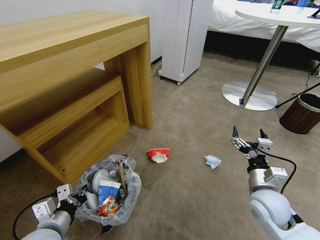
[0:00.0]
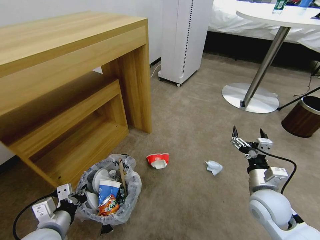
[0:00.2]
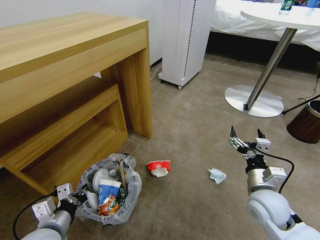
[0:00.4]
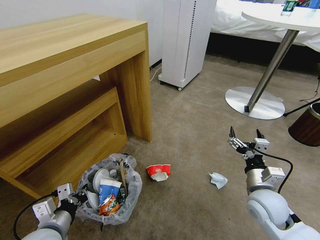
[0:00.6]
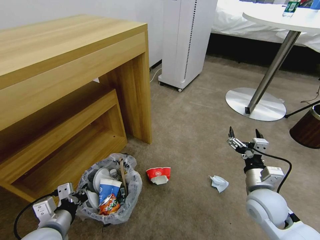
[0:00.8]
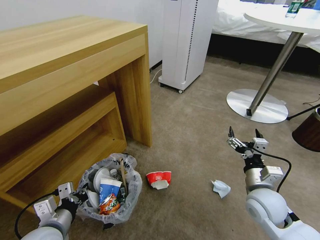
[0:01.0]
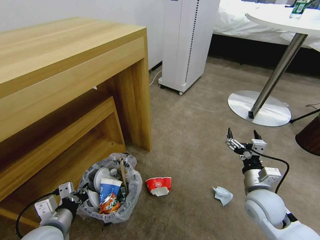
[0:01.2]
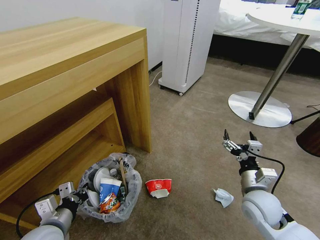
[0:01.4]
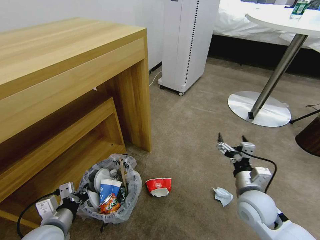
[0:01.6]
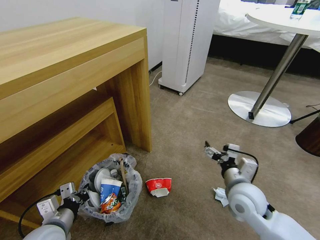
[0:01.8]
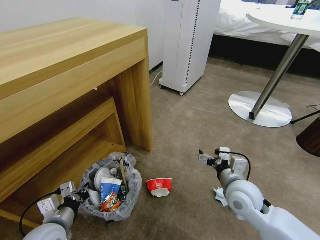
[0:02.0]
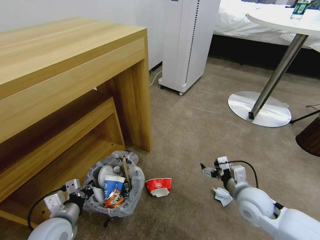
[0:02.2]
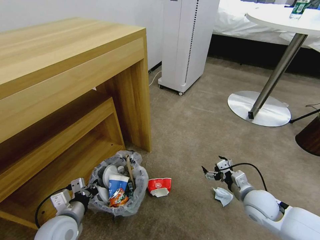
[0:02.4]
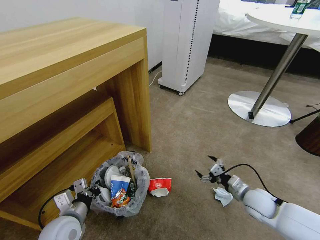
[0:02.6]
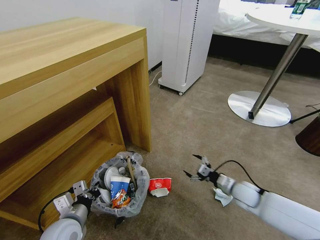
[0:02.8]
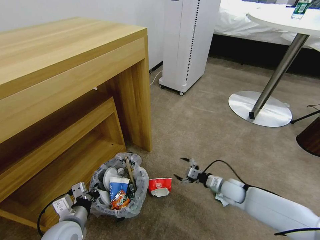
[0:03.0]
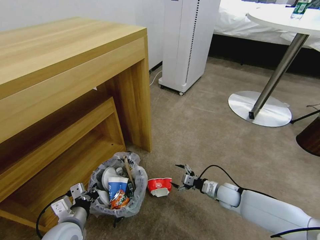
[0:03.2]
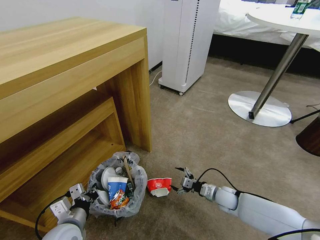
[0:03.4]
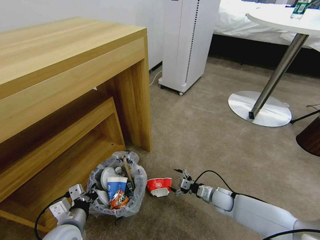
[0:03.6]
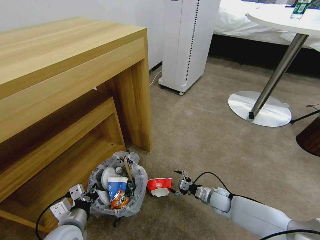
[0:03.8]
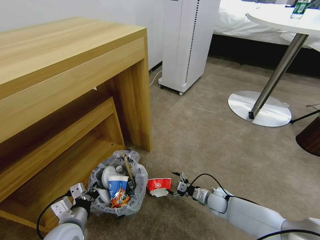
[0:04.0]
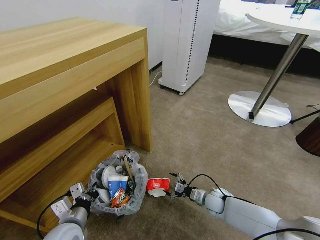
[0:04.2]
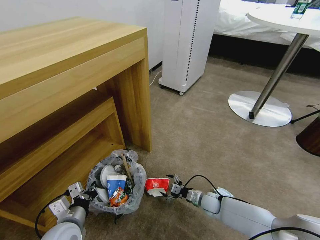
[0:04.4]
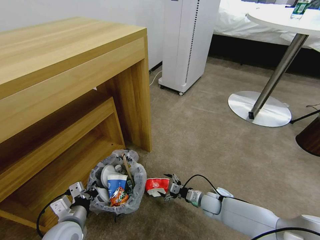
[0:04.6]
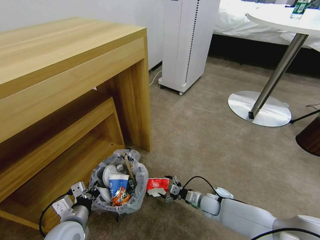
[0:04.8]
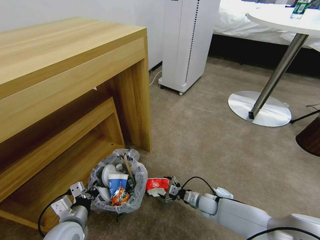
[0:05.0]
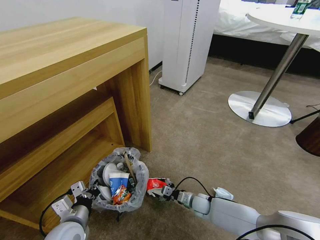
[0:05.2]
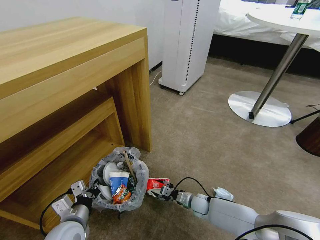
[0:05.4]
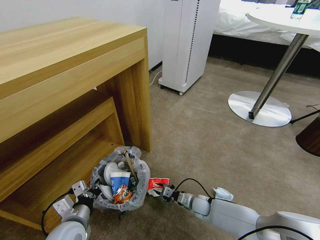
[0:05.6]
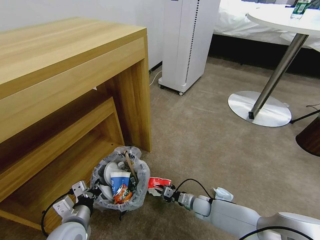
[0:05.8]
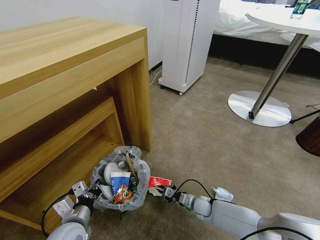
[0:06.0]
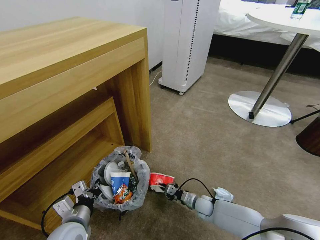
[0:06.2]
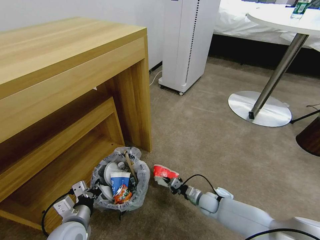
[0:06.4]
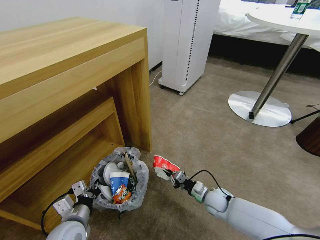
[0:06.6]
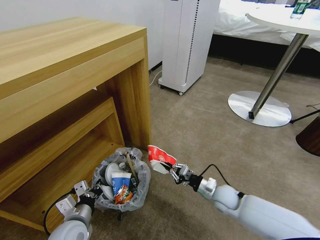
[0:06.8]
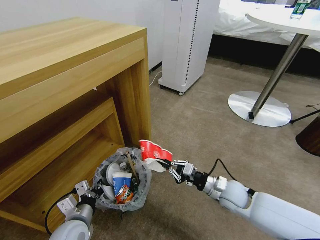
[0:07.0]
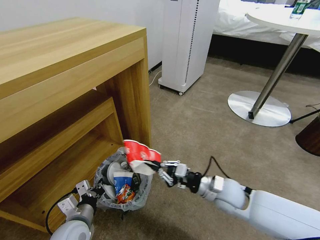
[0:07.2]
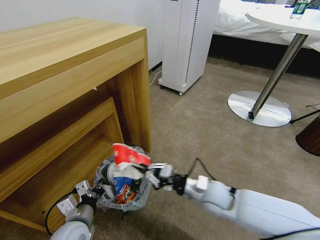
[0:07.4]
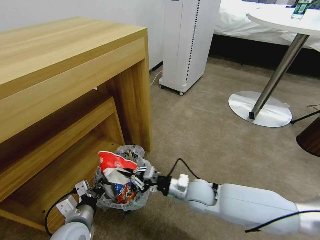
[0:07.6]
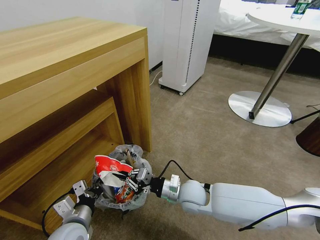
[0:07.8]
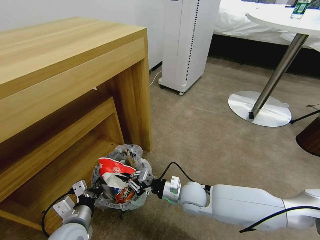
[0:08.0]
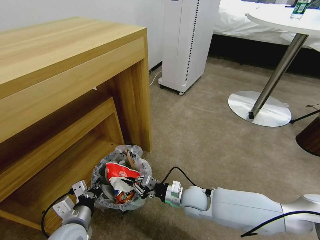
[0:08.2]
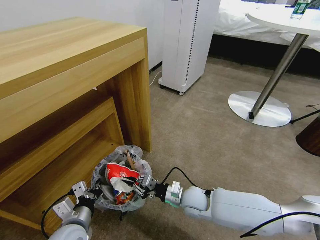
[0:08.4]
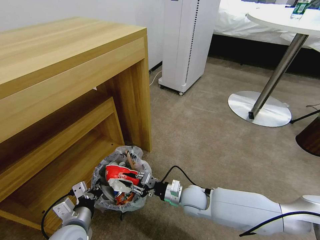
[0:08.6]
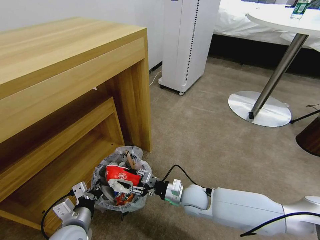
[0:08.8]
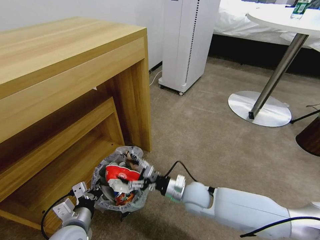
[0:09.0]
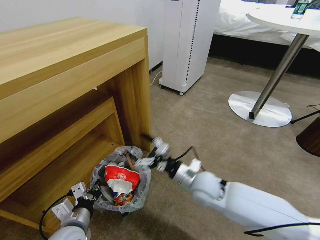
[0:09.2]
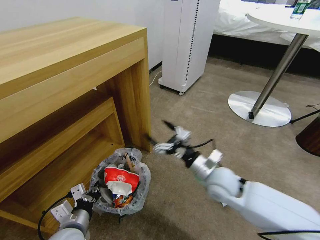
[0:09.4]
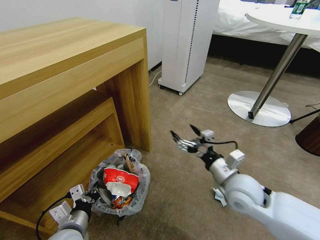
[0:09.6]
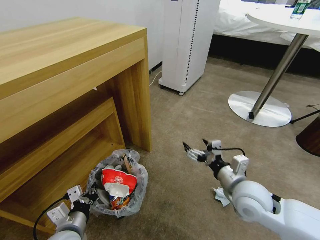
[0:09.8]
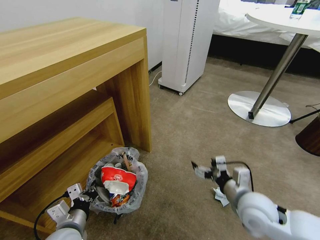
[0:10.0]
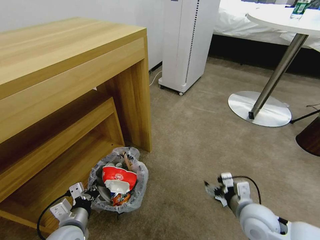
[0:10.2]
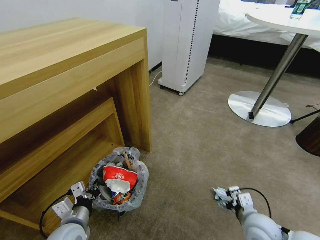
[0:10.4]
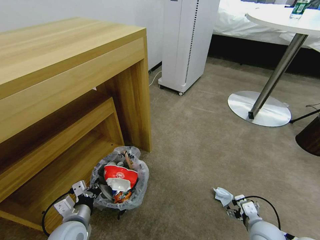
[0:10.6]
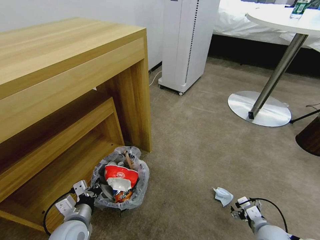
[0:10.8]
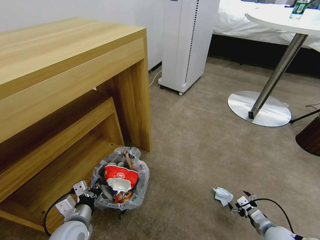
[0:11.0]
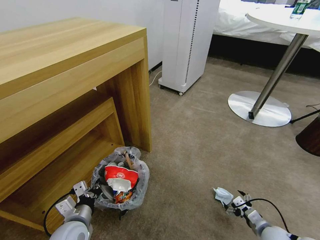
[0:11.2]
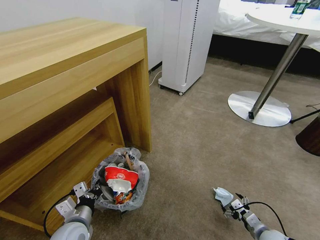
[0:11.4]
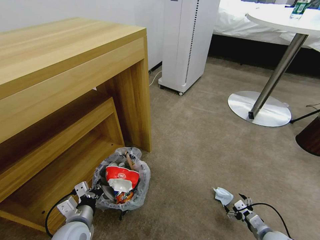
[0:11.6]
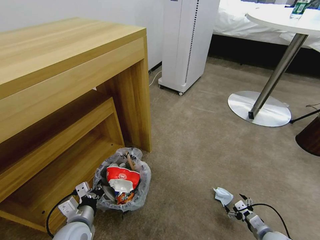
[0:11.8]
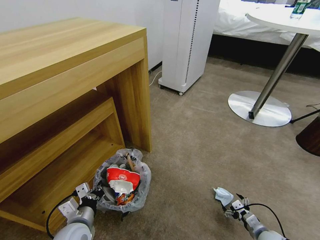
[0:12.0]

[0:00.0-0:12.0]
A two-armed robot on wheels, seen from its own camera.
Task of the whole recording: Pick up the trash bin and place the garbage on the floor into it.
0:01.6 to 0:03.0: The right gripper moves downward and forward, some 20 cm.
0:03.0 to 0:04.4: The right gripper travels downward and to the left by roughly 10 cm.
0:04.4 to 0:06.0: The right gripper closes its fingers.
0:06.0 to 0:07.6: The right gripper goes about 25 cm upward.
0:07.6 to 0:09.0: The right gripper opens up.
0:09.0 to 0:10.4: The right gripper heads to the right and backward, covering some 20 cm.
0:10.4 to 0:12.0: The right gripper is displaced downward and to the right by approximately 20 cm.

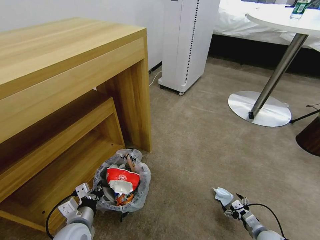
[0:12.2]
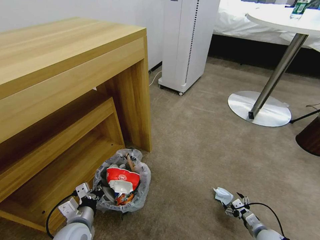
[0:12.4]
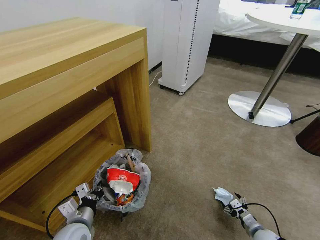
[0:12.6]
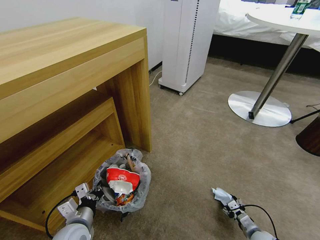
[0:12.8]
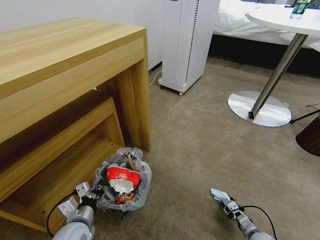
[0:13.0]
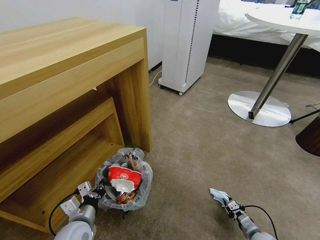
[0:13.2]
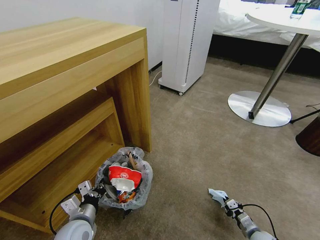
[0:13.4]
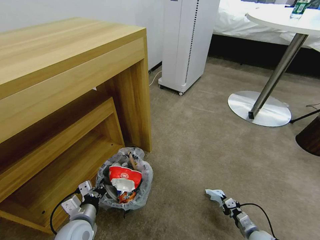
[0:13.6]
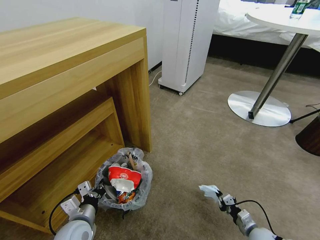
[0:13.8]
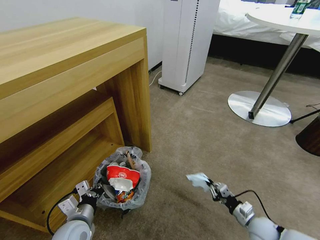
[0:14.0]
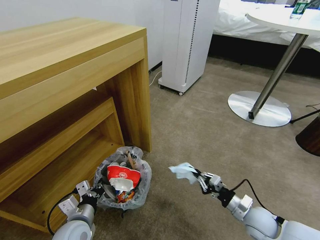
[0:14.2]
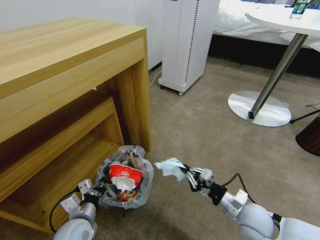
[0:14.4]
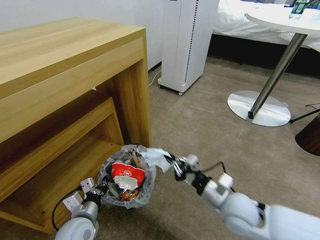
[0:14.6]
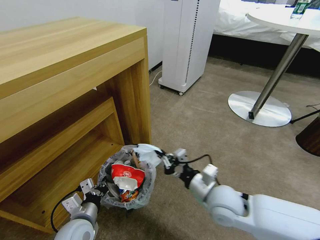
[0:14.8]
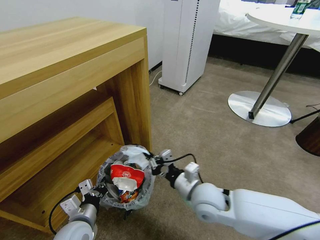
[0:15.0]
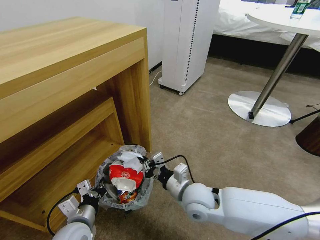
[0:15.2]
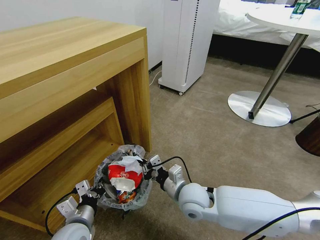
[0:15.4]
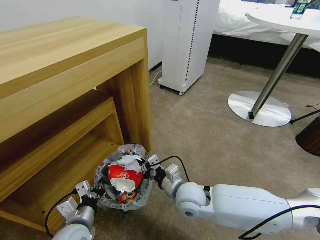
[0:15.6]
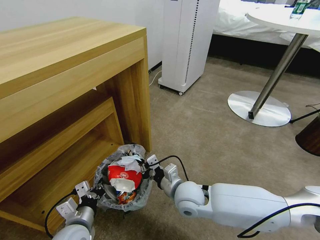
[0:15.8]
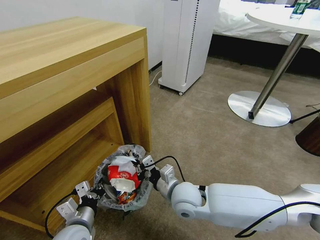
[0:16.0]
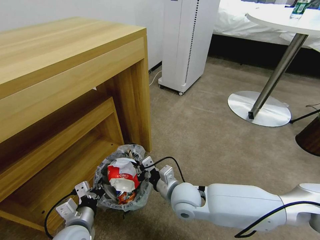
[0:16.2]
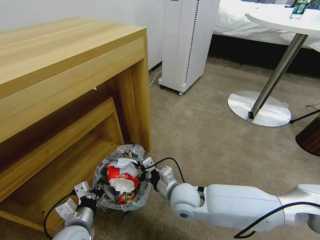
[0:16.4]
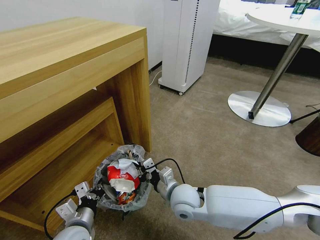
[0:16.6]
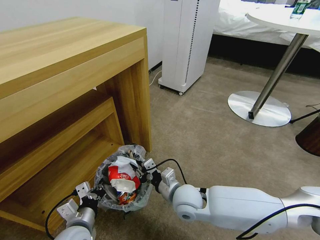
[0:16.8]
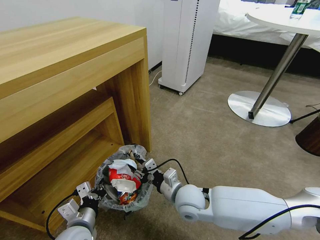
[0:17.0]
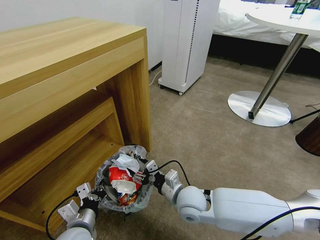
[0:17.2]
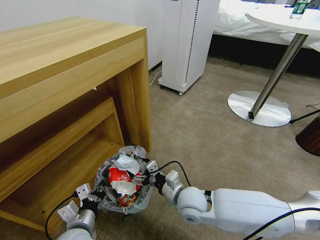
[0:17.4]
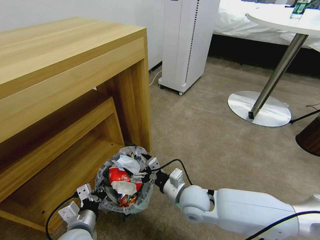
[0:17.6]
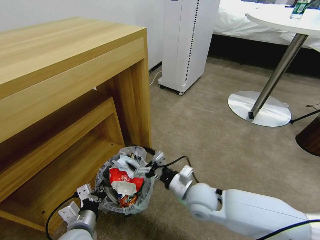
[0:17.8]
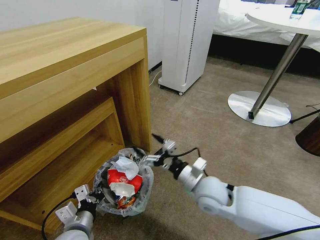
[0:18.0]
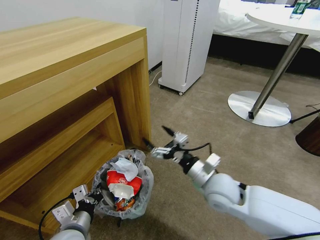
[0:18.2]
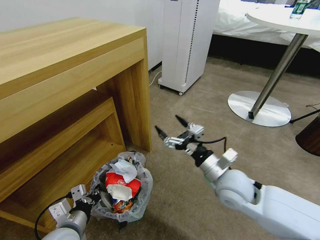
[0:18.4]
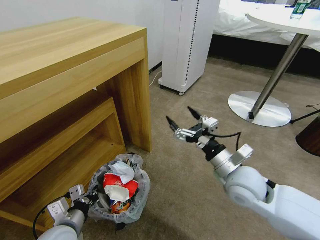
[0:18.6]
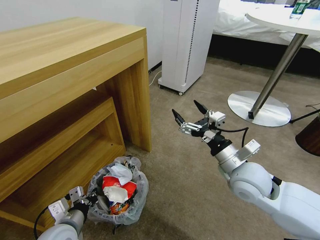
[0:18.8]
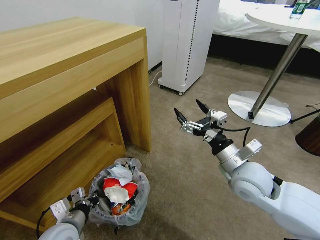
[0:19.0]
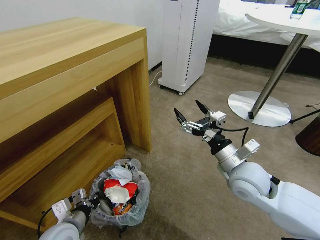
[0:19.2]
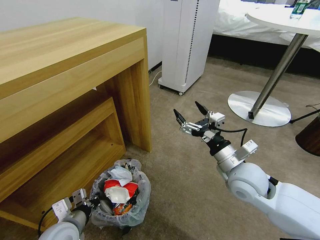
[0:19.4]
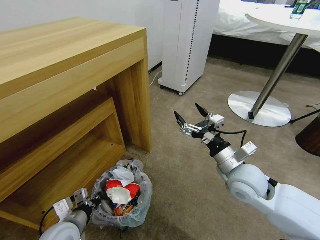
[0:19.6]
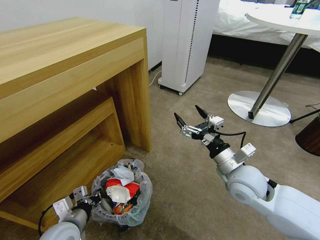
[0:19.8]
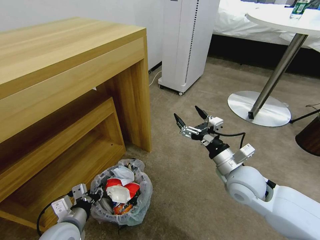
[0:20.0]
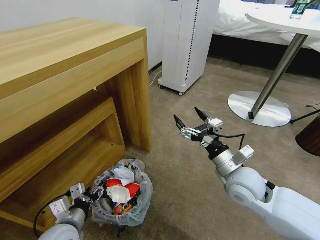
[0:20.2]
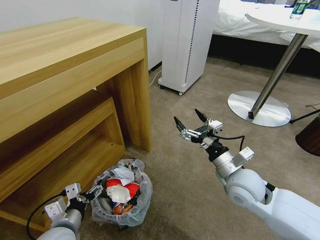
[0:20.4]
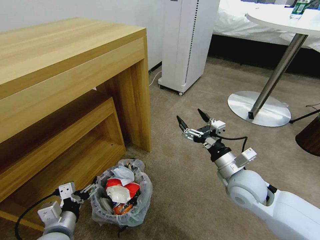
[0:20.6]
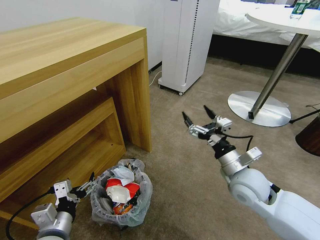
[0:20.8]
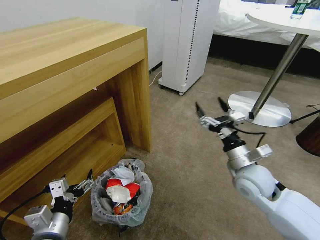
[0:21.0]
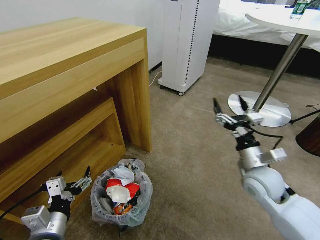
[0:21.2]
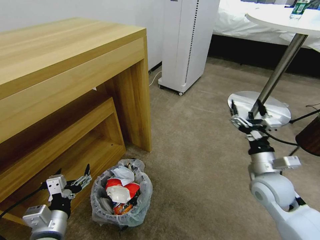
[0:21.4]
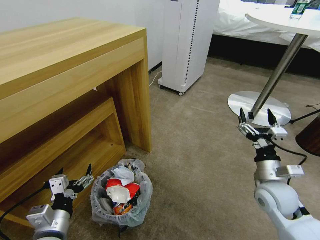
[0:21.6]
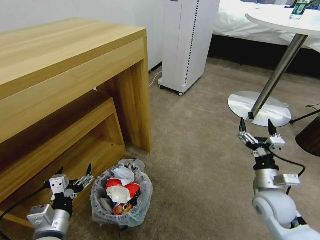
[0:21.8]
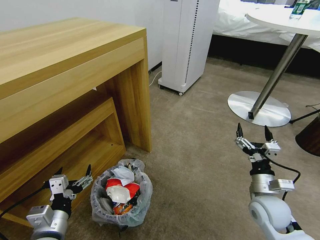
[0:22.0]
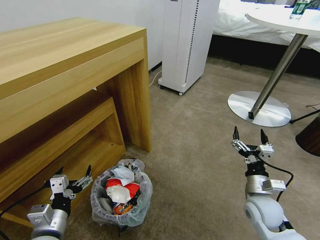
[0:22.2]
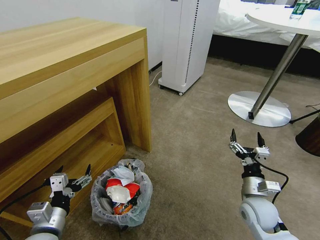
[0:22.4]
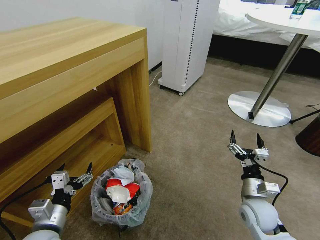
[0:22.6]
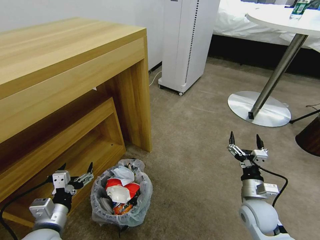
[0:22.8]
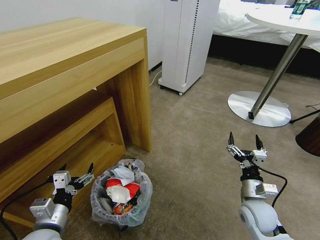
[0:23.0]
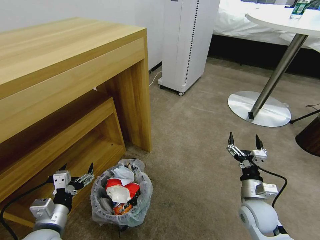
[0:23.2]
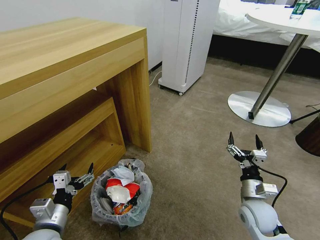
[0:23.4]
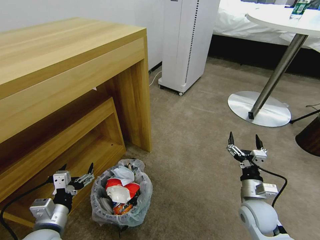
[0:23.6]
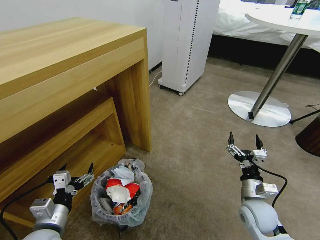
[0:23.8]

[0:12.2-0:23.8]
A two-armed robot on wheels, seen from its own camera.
Task of the whole recording: Pick up the trash bin and place the garbage on the floor into it.
0:12.2 to 0:13.6: The right gripper closes up.
0:13.6 to 0:15.0: The right gripper moves upward and to the left, roughly 35 cm.
0:15.0 to 0:16.6: The right gripper shifts about 5 cm to the left.
0:16.6 to 0:18.0: The right gripper shifts approximately 5 cm to the right, and opens up.
0:18.0 to 0:19.4: The right gripper is displaced to the right and upward by about 10 cm.
0:19.4 to 0:21.0: The left gripper moves approximately 5 cm, and opens up.
0:21.0 to 0:22.4: The right gripper is displaced downward by about 10 cm.
0:22.4 to 0:23.8: Both grippers stay put.
